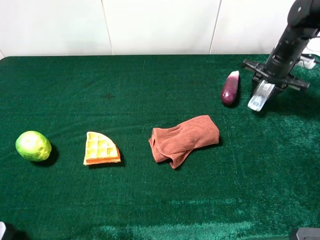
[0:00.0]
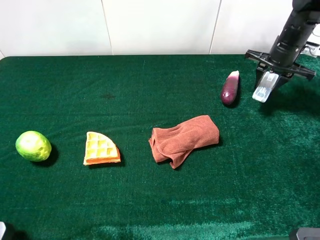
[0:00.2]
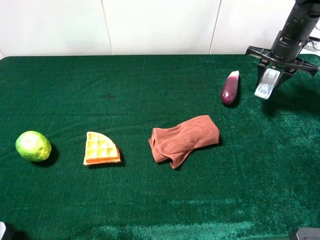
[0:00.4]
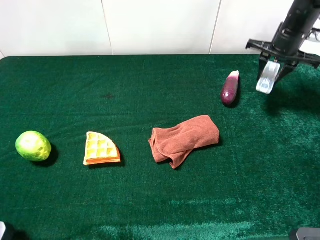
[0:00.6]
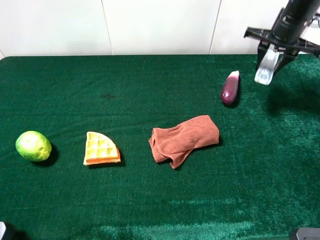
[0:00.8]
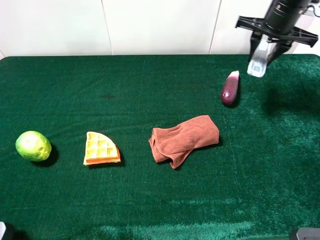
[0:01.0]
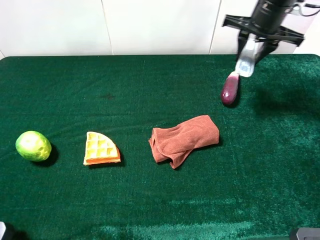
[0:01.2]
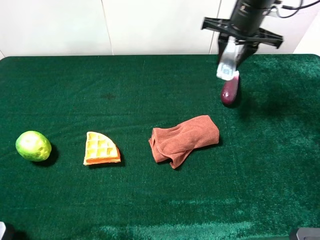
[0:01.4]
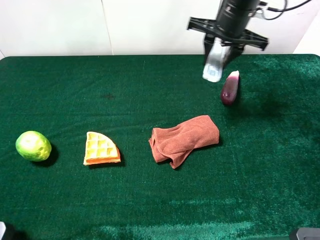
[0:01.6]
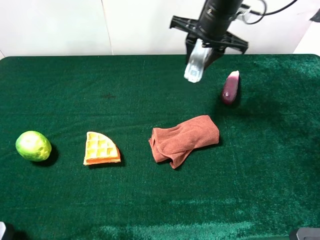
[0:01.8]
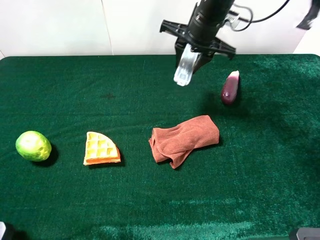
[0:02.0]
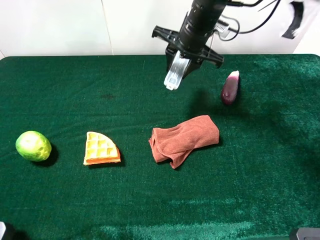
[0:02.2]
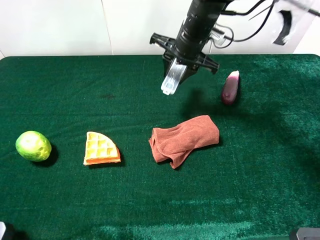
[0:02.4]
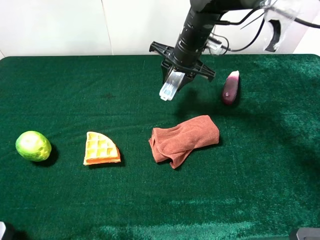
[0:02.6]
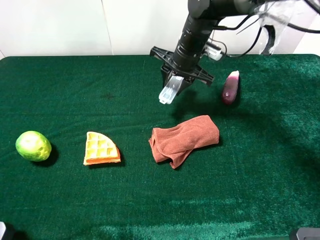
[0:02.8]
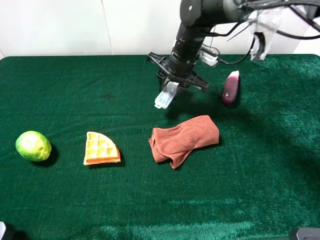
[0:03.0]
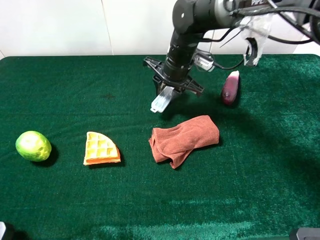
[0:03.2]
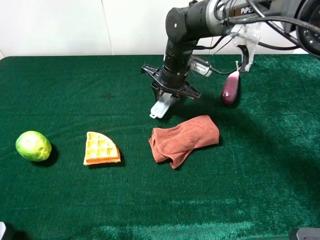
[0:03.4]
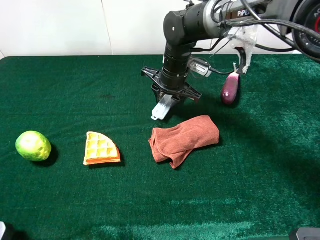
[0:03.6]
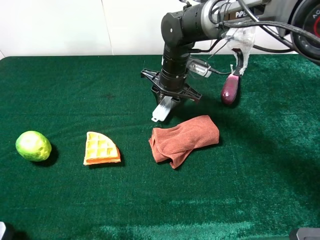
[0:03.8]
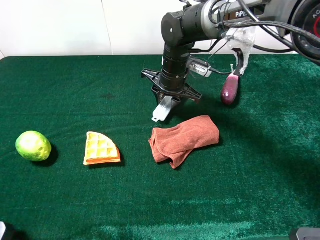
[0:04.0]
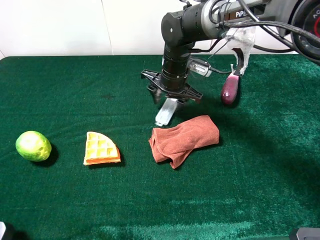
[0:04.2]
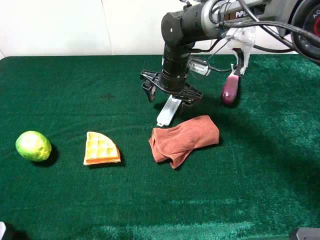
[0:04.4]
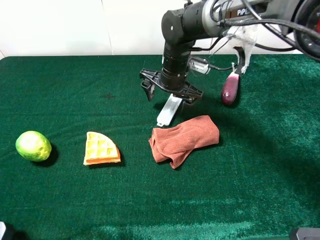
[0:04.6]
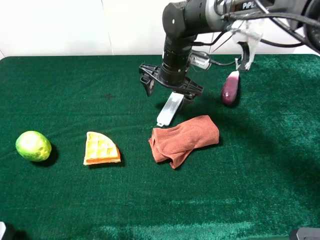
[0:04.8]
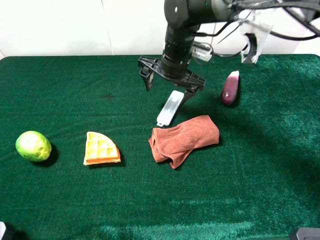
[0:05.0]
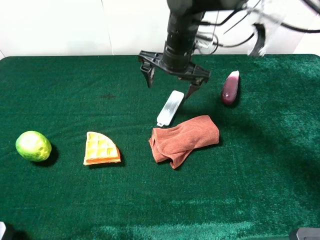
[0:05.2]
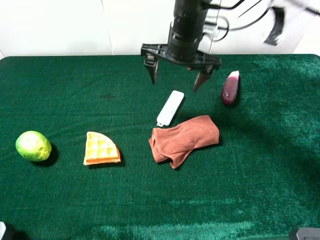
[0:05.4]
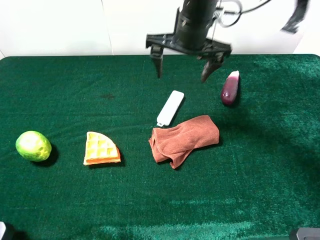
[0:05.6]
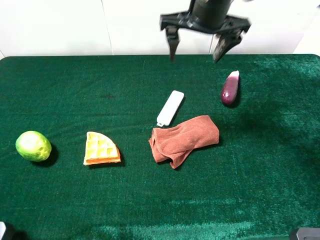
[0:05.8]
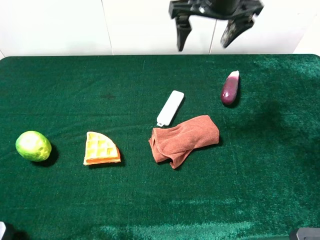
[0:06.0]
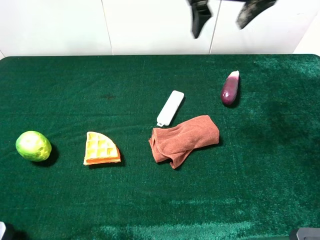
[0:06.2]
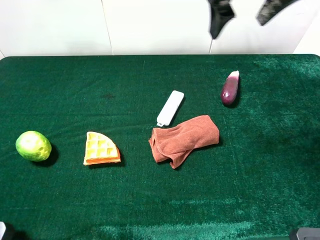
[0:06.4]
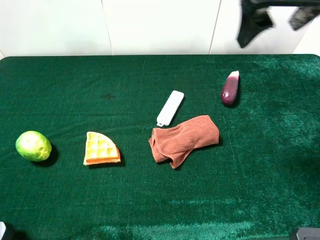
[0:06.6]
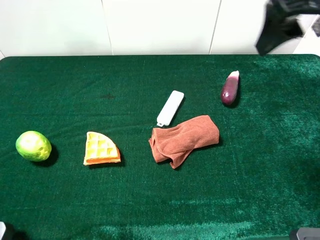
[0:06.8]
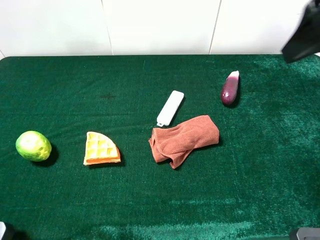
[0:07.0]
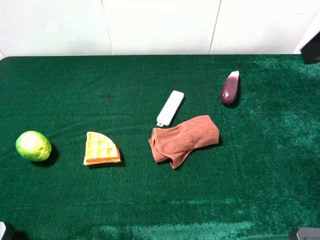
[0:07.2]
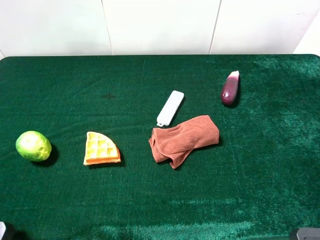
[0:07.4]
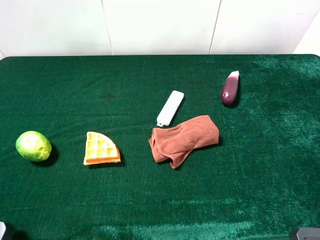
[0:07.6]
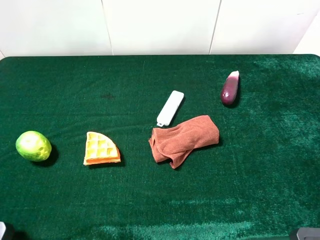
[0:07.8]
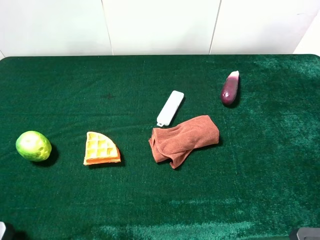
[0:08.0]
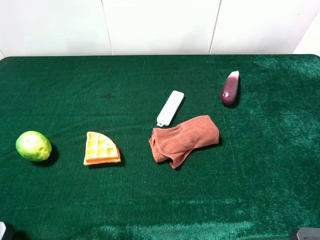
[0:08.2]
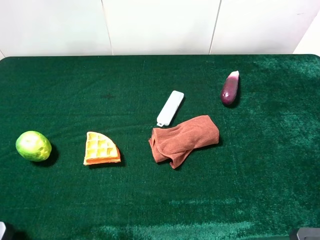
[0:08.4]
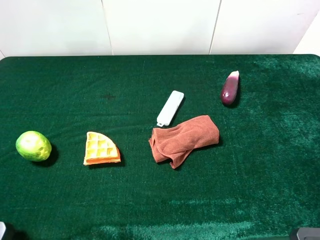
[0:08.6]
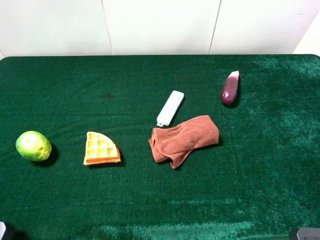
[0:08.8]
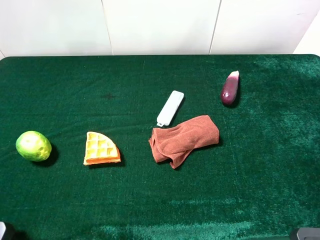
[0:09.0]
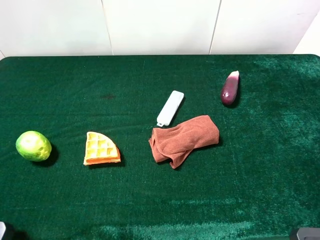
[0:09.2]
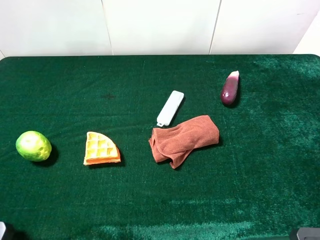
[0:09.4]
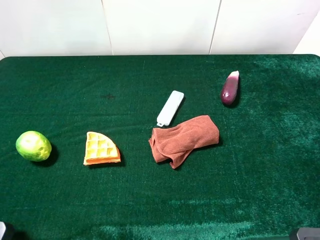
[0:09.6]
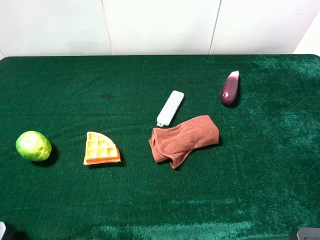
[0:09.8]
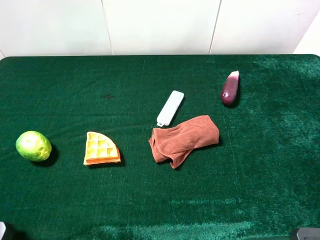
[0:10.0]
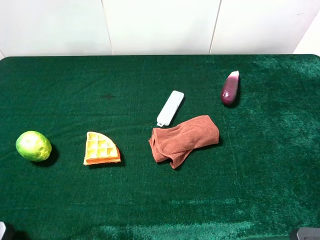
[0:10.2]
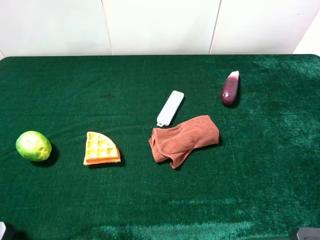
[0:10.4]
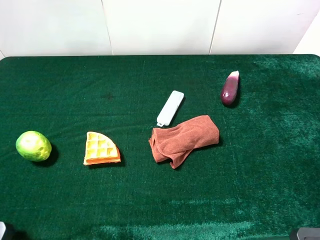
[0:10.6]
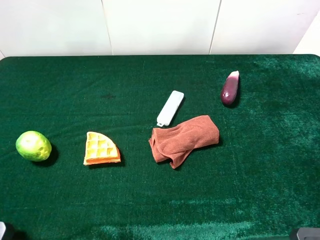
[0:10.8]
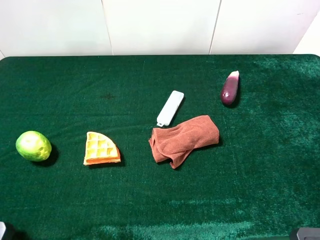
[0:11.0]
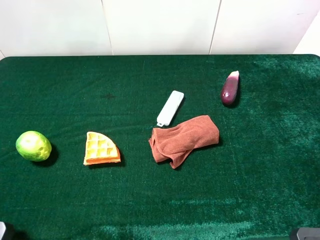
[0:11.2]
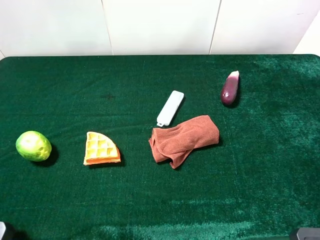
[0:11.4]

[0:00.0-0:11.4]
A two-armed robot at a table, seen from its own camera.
Task of the whole recording: the gripper move the object.
Step, 0:00.0 to 0:04.8: Place the compass on the table with the right gripper.
0:00.0 to 0:01.4: The right gripper goes about 20 cm to the left and upward.
0:01.4 to 0:02.8: The right gripper heads to the left and downward, covering roughly 15 cm.
0:02.8 to 0:04.2: The right gripper shifts by approximately 5 cm, and opens its fingers.
0:04.2 to 0:05.6: The right gripper goes about 15 cm upward.
0:05.6 to 0:07.2: The right gripper goes some 30 cm backward, to the right and upward.
0:08.6 to 0:11.4: The two grippers keep their place.
